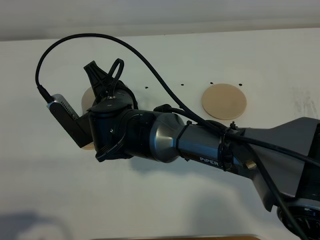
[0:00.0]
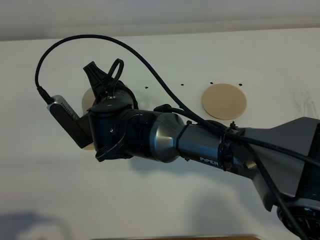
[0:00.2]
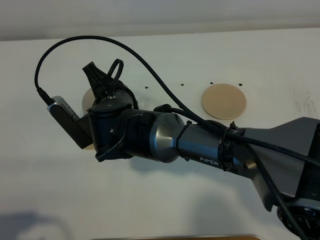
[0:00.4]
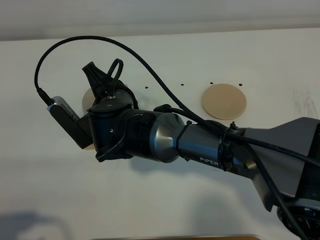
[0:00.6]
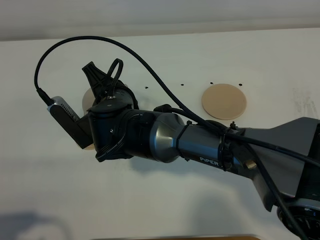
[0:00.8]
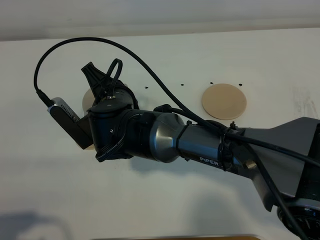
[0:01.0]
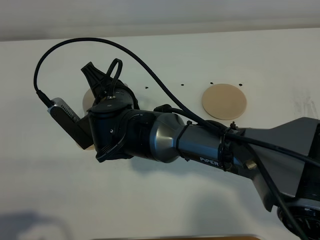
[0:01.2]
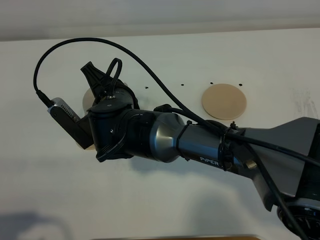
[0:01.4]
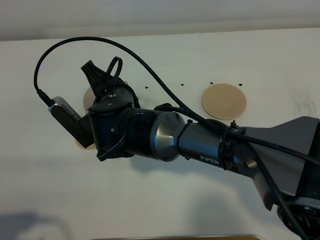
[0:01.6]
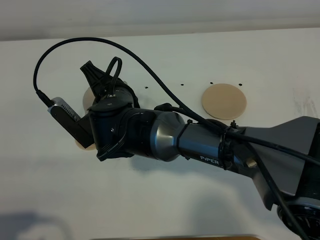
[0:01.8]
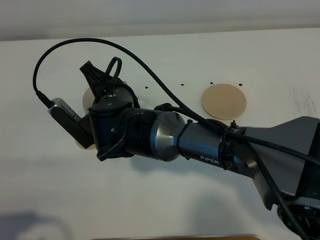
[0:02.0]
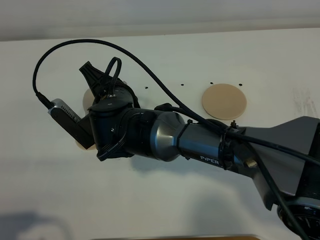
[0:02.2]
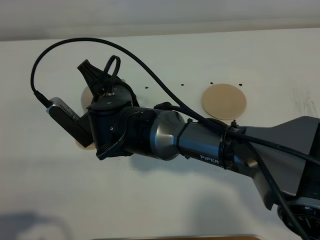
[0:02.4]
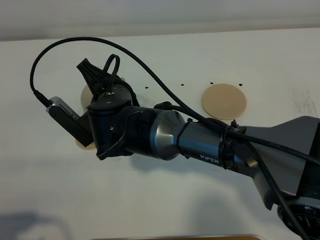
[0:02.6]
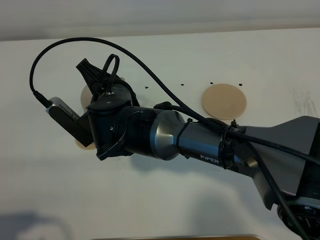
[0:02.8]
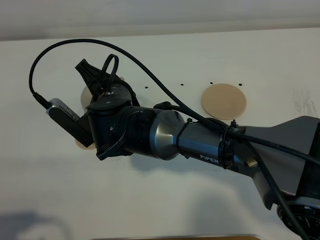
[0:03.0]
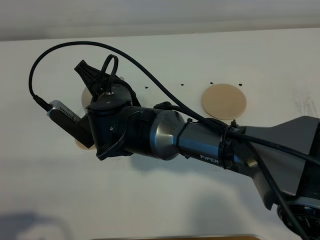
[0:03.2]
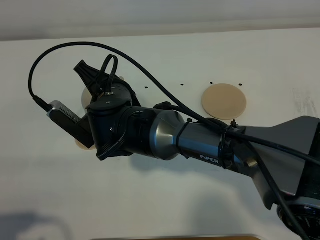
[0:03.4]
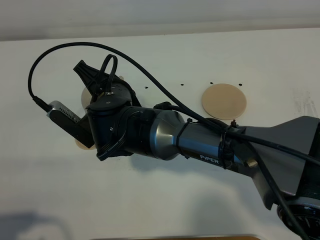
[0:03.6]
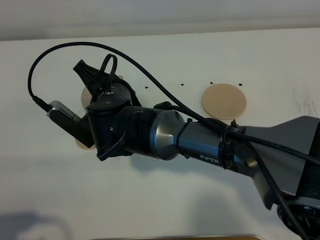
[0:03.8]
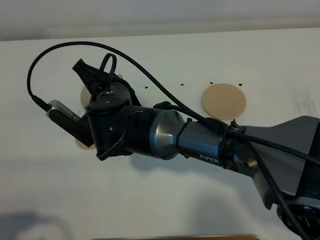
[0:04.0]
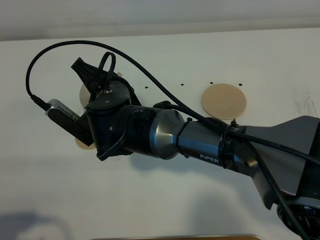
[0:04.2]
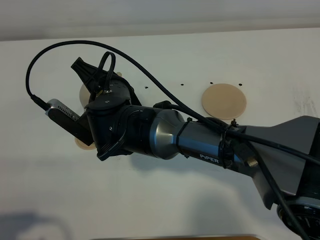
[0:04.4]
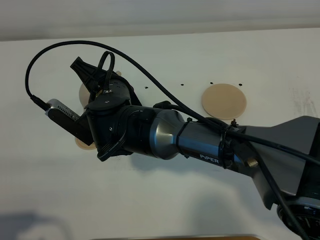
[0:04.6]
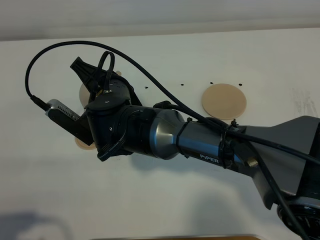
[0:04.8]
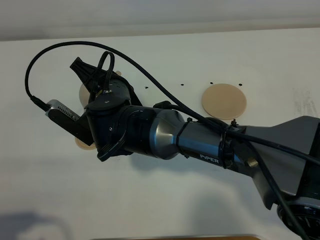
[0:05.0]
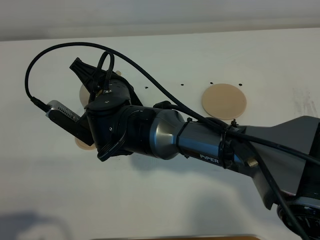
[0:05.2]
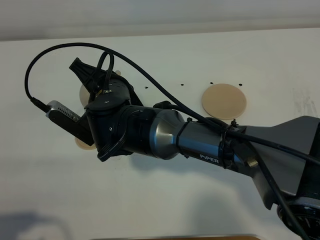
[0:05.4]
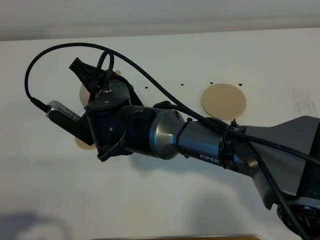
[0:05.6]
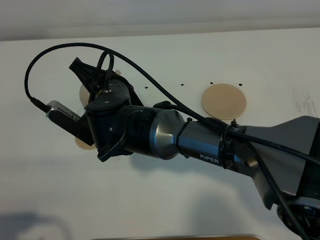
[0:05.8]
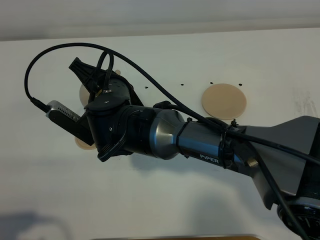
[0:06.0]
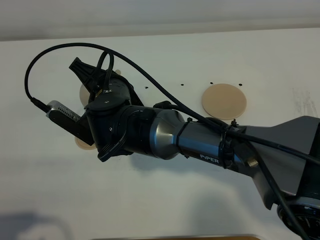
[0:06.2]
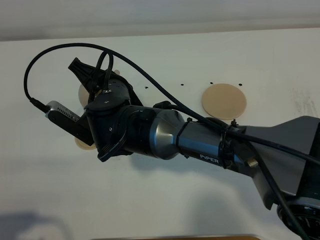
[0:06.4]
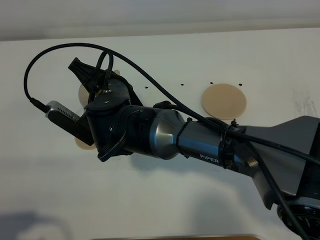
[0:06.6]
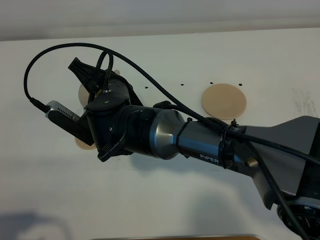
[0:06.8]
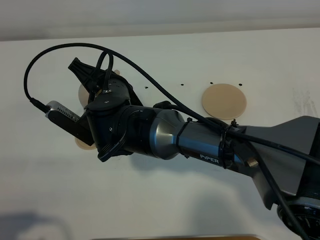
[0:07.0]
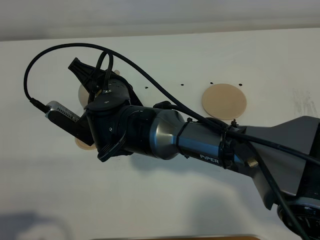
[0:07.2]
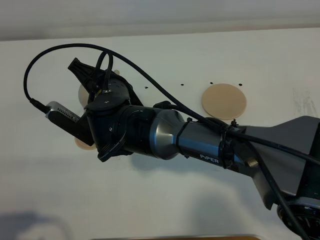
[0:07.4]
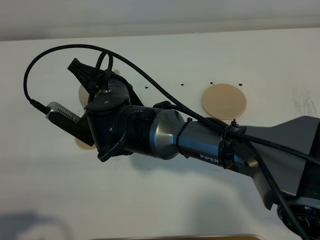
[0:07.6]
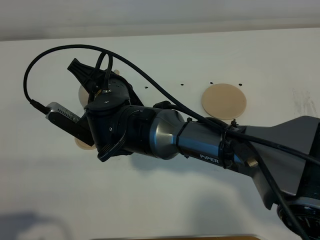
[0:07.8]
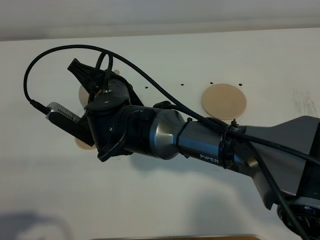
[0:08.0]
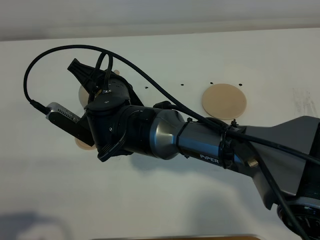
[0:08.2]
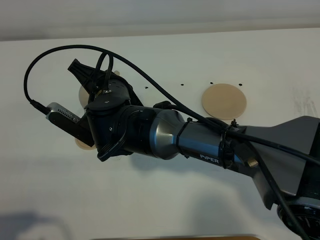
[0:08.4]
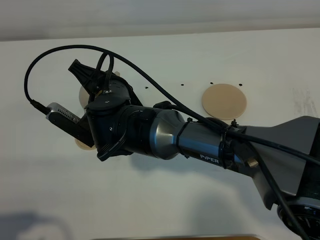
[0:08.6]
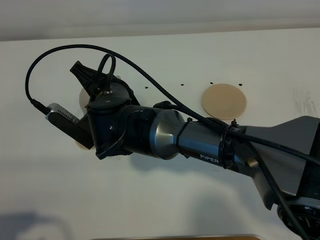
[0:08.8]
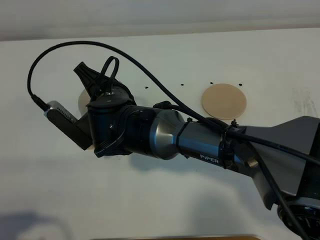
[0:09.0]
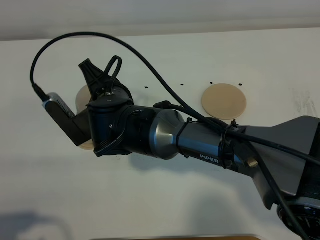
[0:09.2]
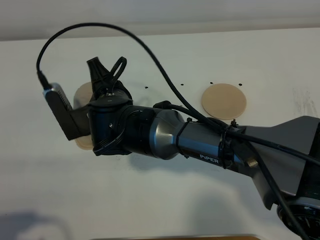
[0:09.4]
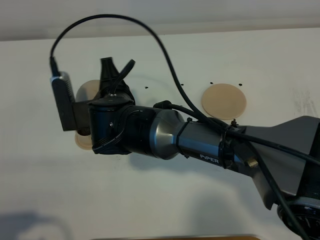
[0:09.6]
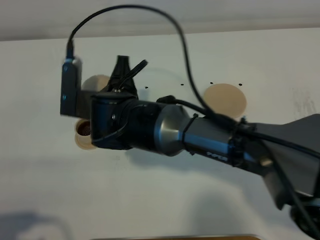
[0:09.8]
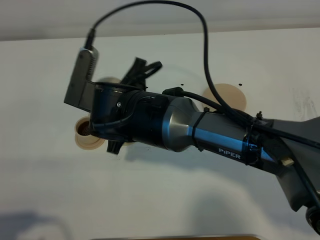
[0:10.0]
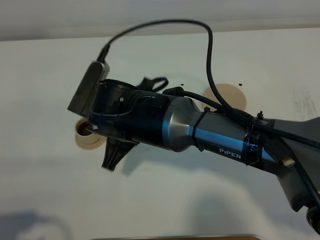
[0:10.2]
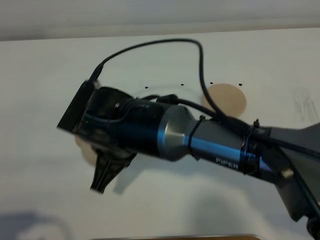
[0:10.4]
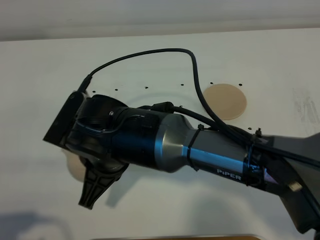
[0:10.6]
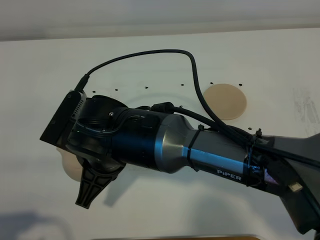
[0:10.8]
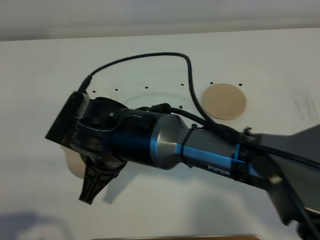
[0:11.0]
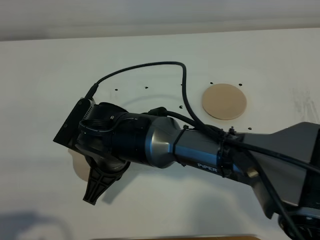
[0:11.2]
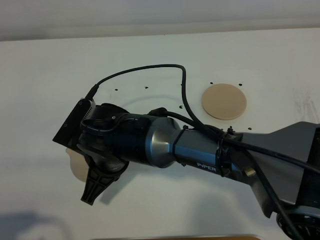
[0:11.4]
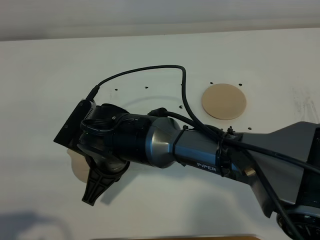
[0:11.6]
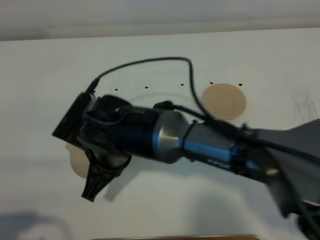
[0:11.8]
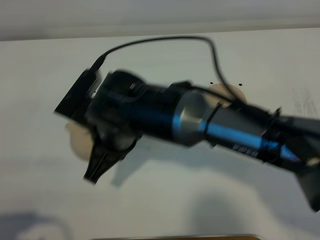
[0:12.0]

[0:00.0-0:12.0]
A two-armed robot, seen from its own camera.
Task of the whole recording: grasp the brown teapot and pour the tea into the two brown teacups one by one, put the brown teapot back in its original place.
Step, 0:00.0 to 0:09.6: Pour tea into the teacup with the right gripper.
0:00.0 to 0:03.0: The grippers make only small movements.
0:03.0 to 0:04.4: Both grippers stay about where they are.
0:04.4 to 0:07.6: Neither gripper changes place.
0:07.6 to 0:09.0: The grippers move only a little.
0:09.0 to 0:10.4: The right gripper travels backward by some 5 cm.

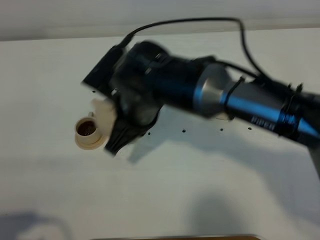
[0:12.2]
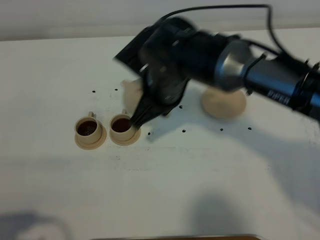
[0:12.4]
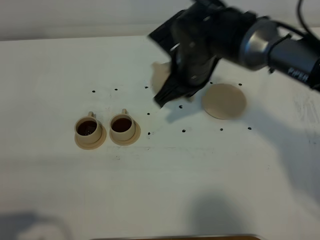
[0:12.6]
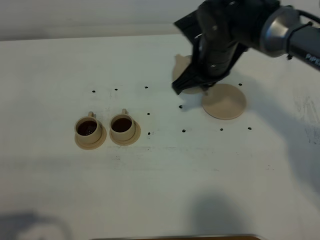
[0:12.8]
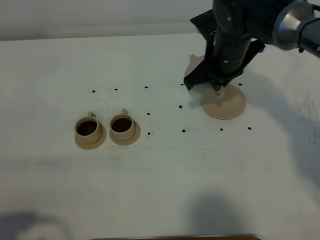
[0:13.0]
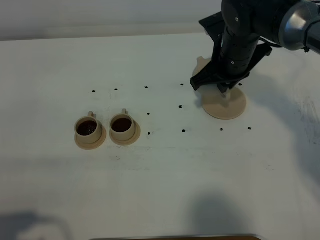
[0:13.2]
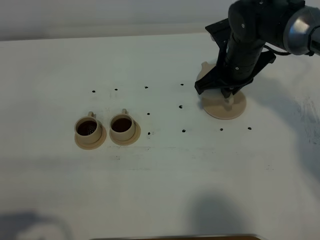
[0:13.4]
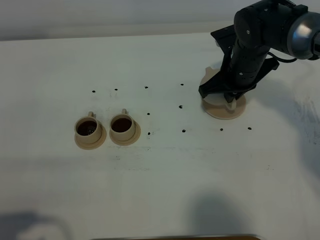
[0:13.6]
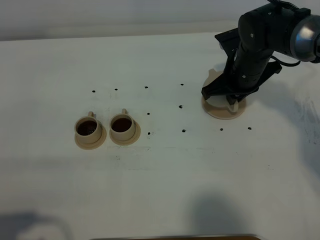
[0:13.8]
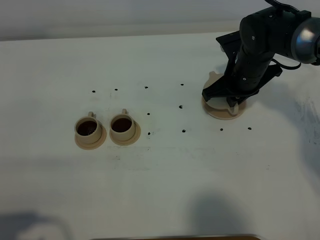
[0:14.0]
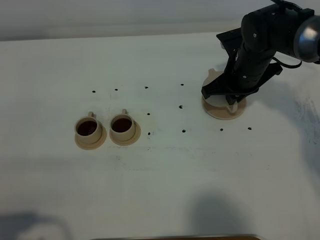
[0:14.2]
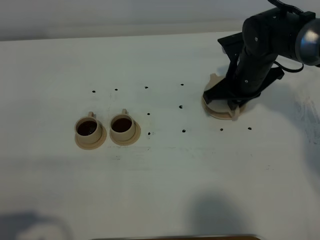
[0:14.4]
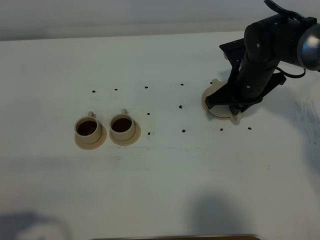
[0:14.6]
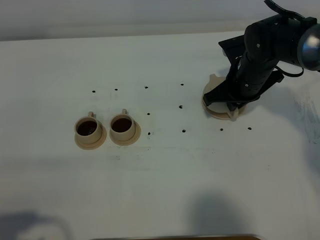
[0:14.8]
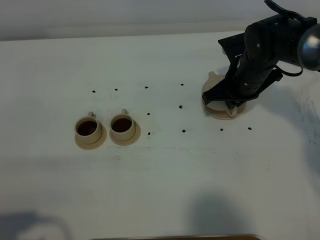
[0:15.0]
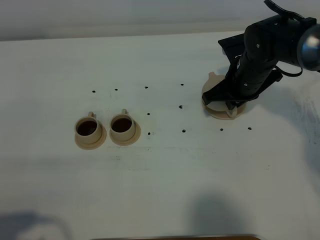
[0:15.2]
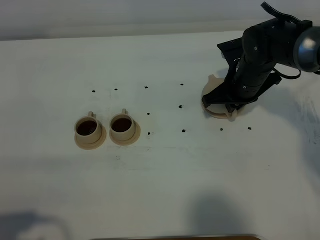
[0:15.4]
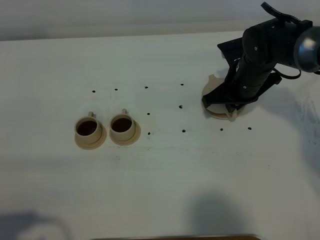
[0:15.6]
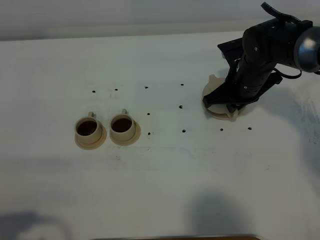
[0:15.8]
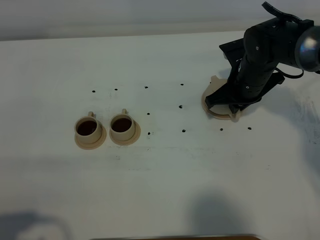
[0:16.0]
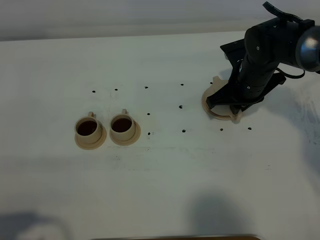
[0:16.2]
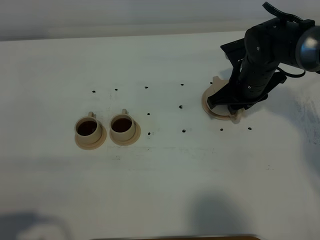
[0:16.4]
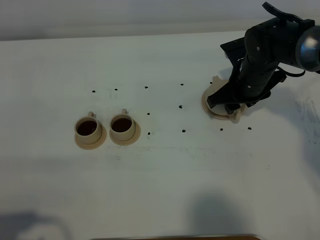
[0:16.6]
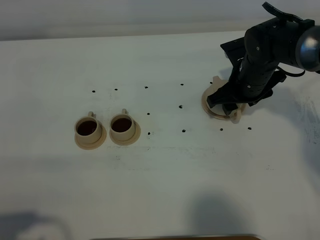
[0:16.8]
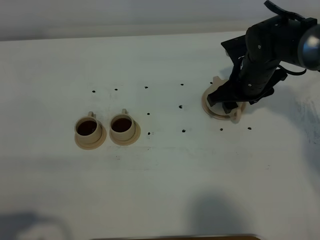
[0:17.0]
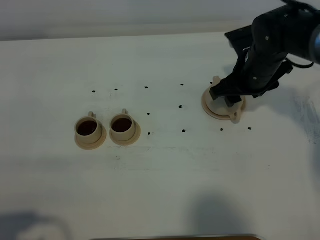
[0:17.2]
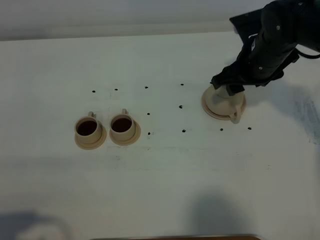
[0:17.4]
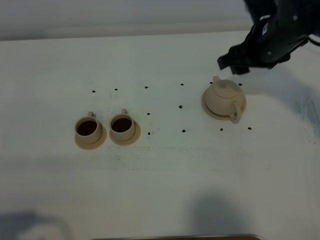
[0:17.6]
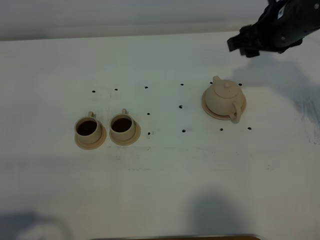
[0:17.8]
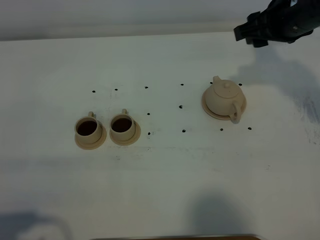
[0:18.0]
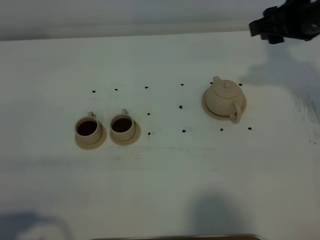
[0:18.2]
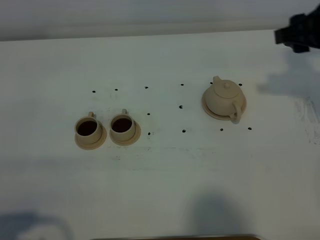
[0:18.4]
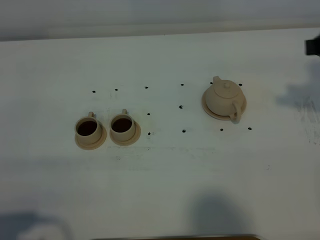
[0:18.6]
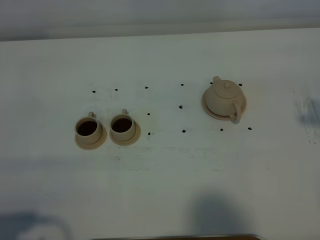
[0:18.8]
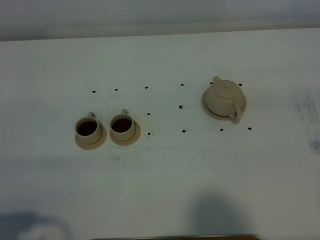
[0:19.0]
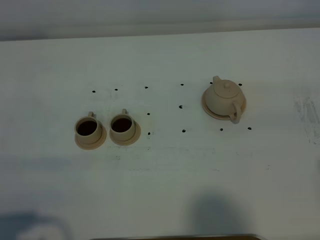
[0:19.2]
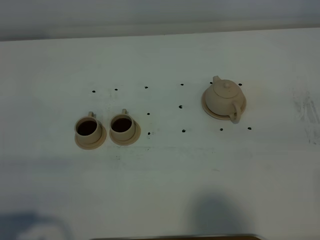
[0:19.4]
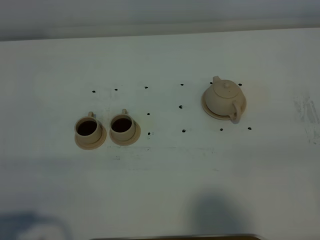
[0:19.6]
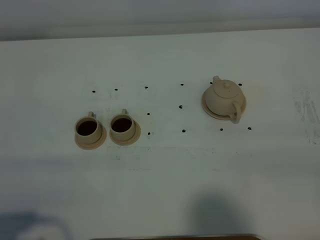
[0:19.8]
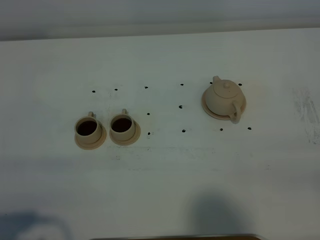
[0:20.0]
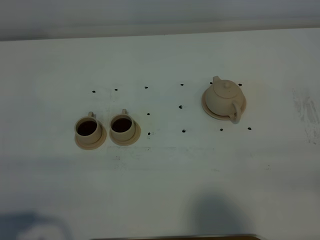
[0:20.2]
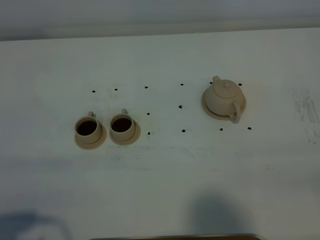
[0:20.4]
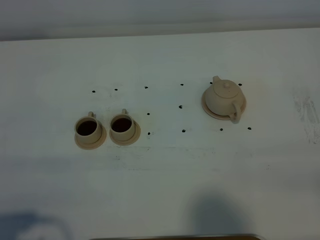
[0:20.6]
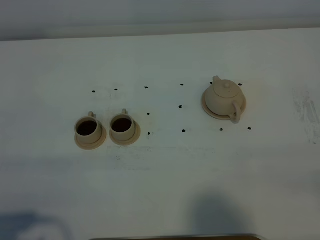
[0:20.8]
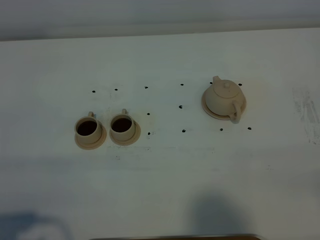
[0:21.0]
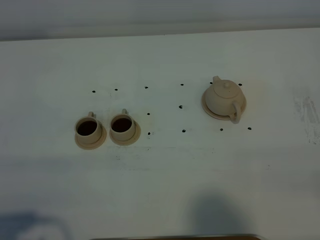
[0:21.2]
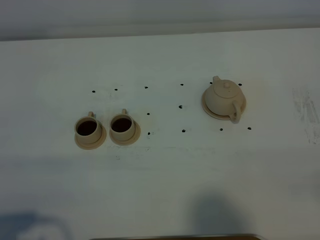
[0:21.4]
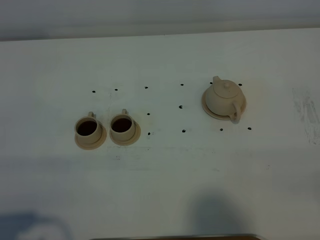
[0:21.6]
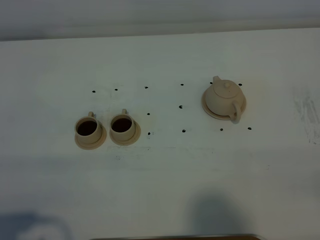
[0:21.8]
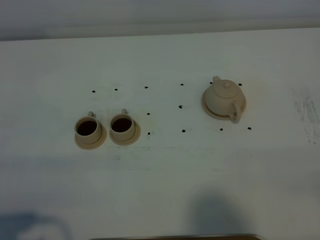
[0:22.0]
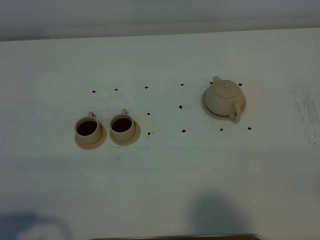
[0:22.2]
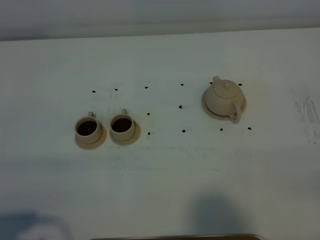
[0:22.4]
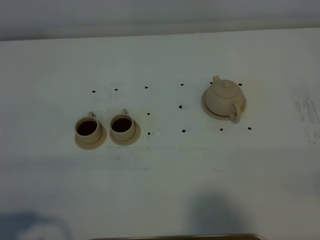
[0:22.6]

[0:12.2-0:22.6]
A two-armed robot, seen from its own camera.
Task of the whole recording: grasp the brown teapot and pour the tea into the two brown teacups one by one, put the brown teapot back in its original place.
0:12.2 to 0:13.6: The right gripper is displaced to the right and forward by approximately 20 cm.
0:13.6 to 0:15.2: The grippers make only small movements.
0:15.2 to 0:16.6: The right gripper opens up.
0:16.6 to 0:18.2: The right gripper travels upward by approximately 15 cm.
0:18.2 to 0:19.6: The right gripper goes approximately 30 cm backward.
0:21.2 to 0:22.6: The two grippers keep their place.
